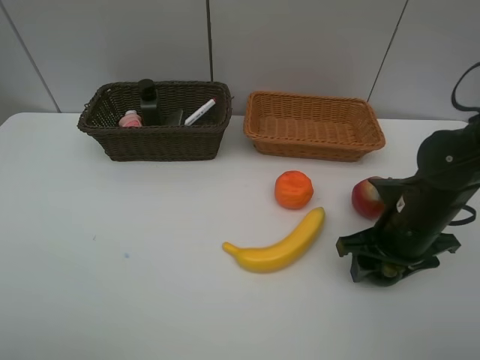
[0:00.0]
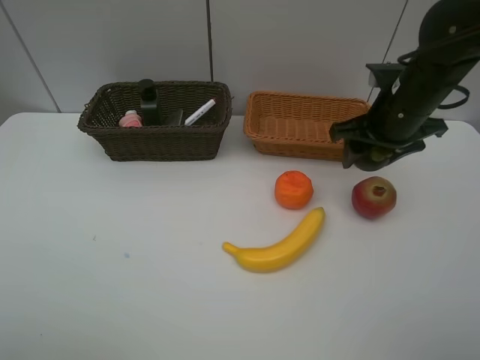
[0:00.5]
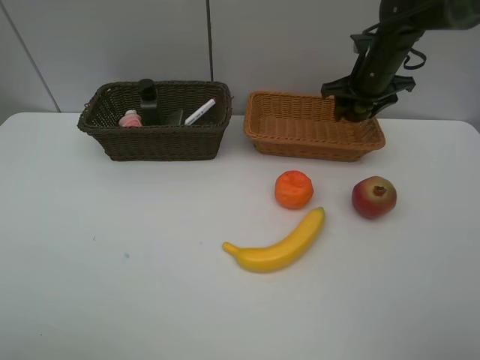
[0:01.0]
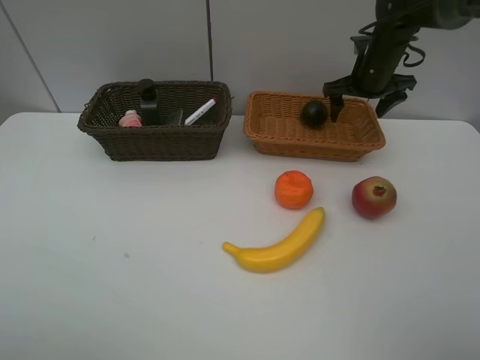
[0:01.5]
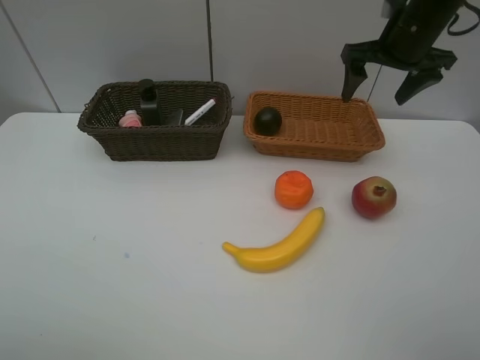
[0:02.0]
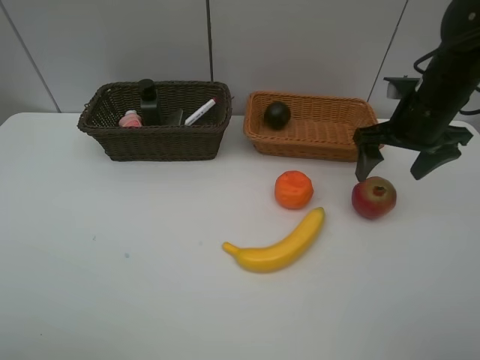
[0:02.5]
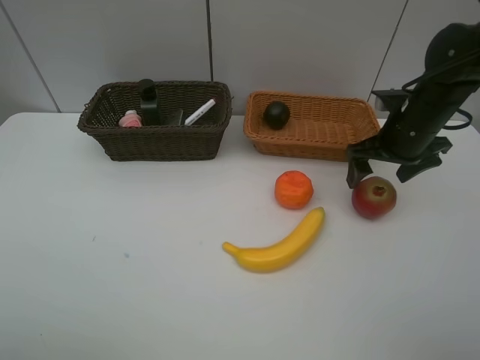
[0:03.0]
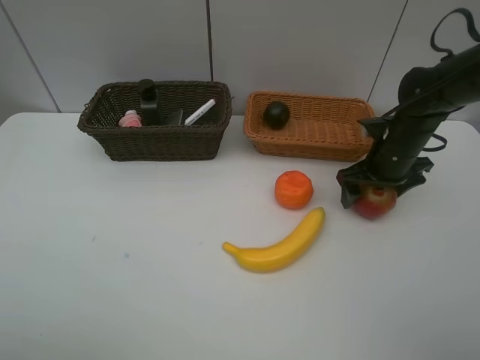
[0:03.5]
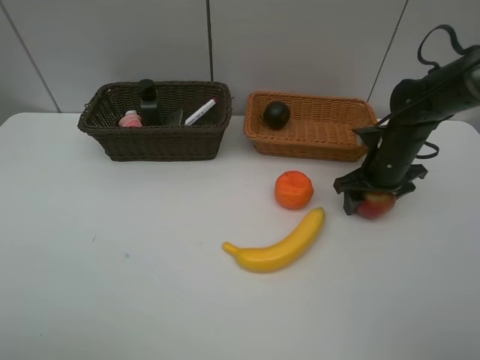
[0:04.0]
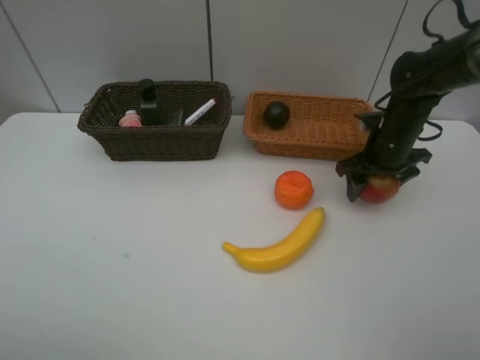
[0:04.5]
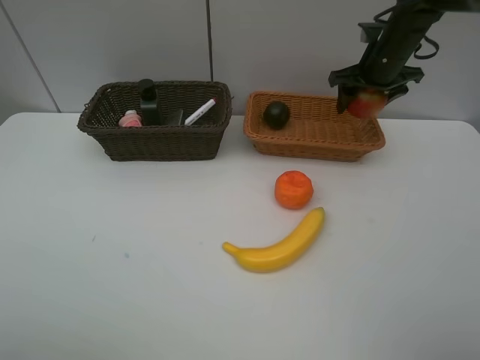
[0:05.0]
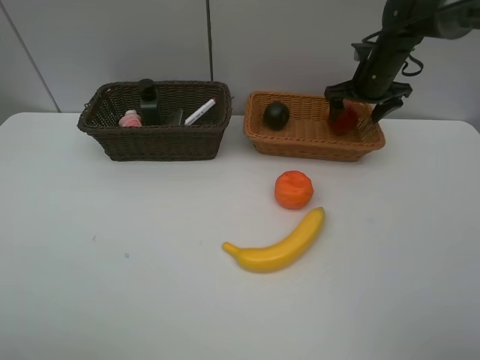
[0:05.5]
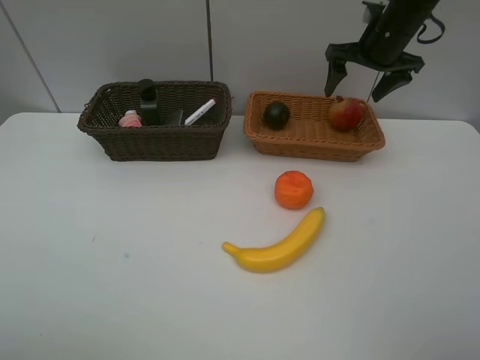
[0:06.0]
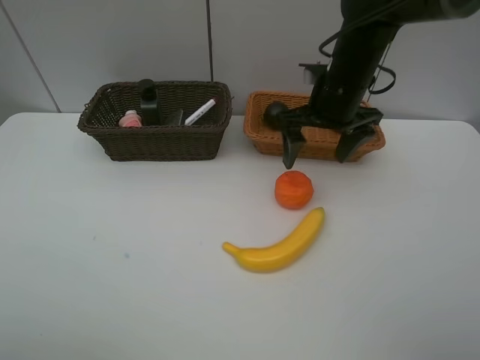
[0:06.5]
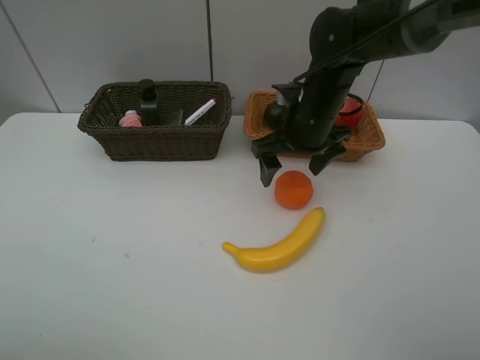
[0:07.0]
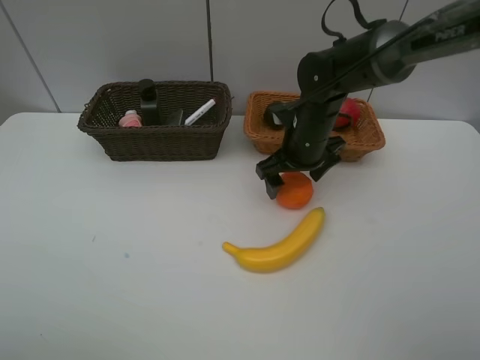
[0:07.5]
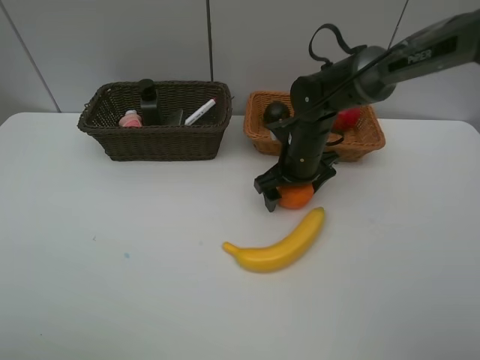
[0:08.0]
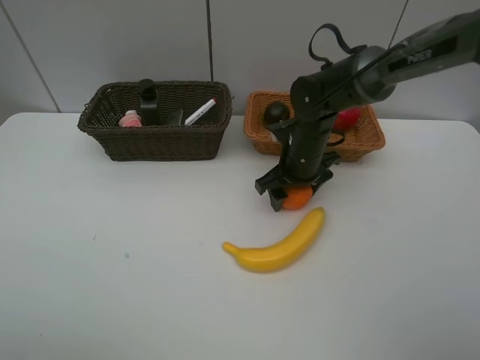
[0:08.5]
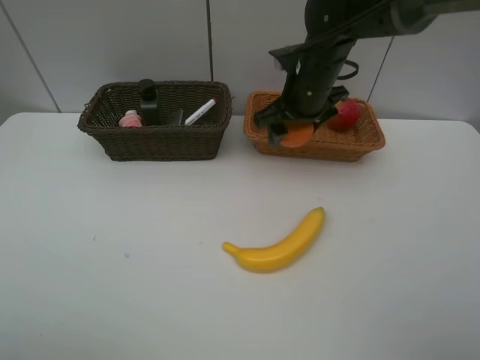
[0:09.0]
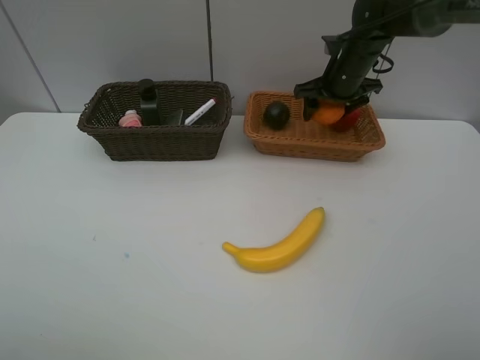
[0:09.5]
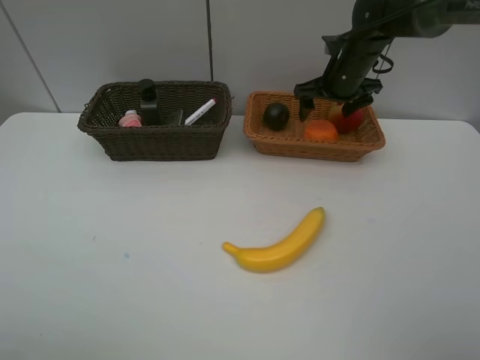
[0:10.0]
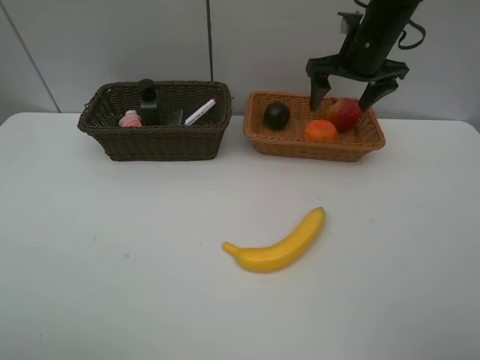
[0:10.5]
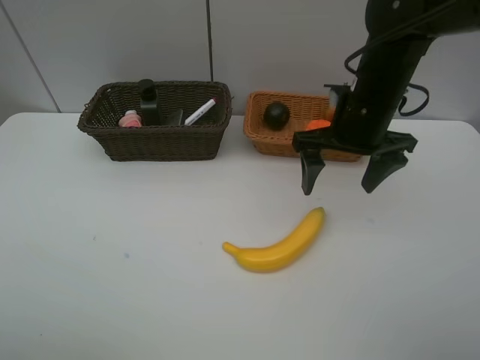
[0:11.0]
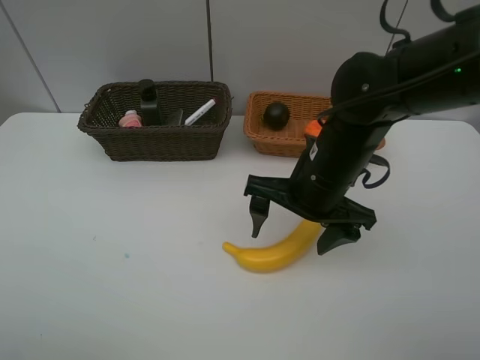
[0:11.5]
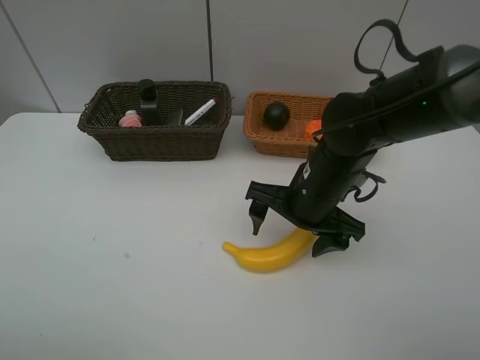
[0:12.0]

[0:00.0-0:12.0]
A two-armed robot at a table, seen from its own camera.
Task of the whole recording: Place multiple objects separately in different baskets.
Step, 0:00.5 to 0:01.0: Place the mangosteen in the light basket with right gripper.
Step, 0:01.5 to 0:04.5: Pick up the pomegranate with right gripper.
Step, 0:05.0 to 0:05.5: Place the pomegranate in the light basket with right gripper.
Step, 0:06.0 to 0:08.5: Pick up the orange with right gripper.
Step, 0:09.0 to 0:09.5: Place the orange in the light basket with right gripper.
0:00.0 to 0:02.0: The right gripper is displaced forward and upward by about 25 cm, and opens up.
0:02.0 to 0:04.0: The right gripper goes some 20 cm downward, and closes.
0:04.0 to 0:06.0: The right gripper swings up and down, about 15 cm each way, with 2 reversals, and opens up.
0:06.0 to 0:08.0: The right gripper goes about 20 cm downward, to the left and backward.
0:08.0 to 0:10.0: The right gripper is displaced forward, upward and to the right by about 15 cm, and closes and opens again.
0:10.0 to 0:12.0: The right gripper goes roughly 20 cm backward.

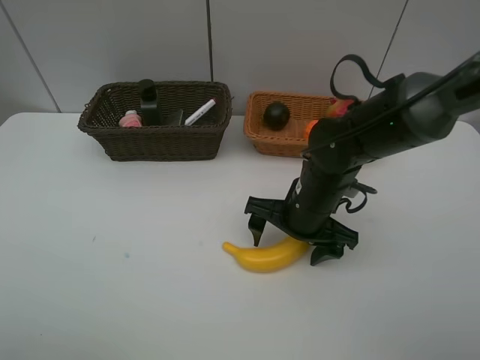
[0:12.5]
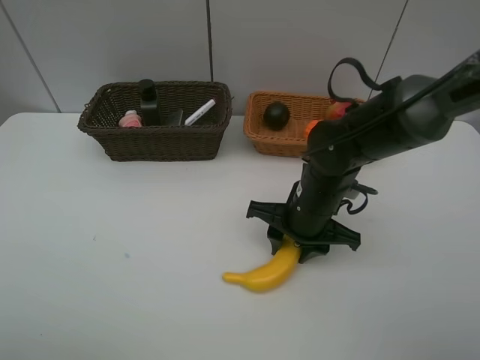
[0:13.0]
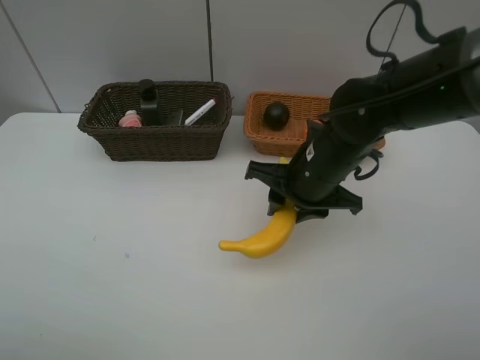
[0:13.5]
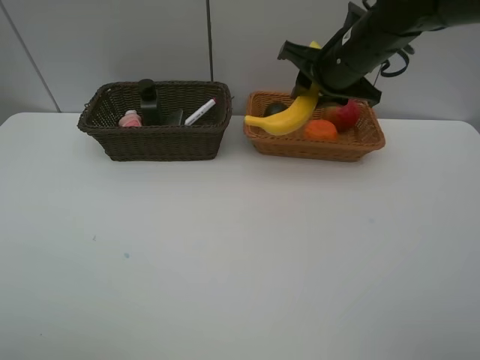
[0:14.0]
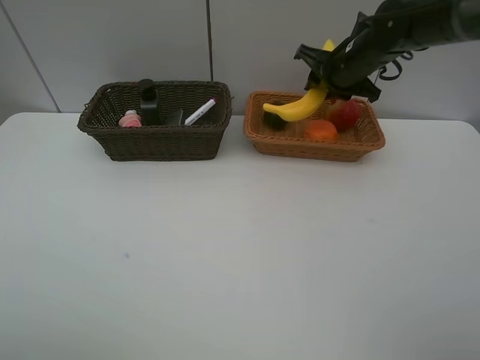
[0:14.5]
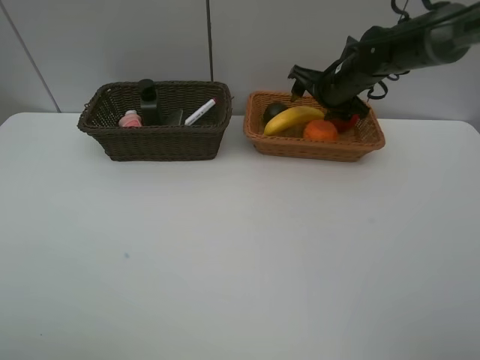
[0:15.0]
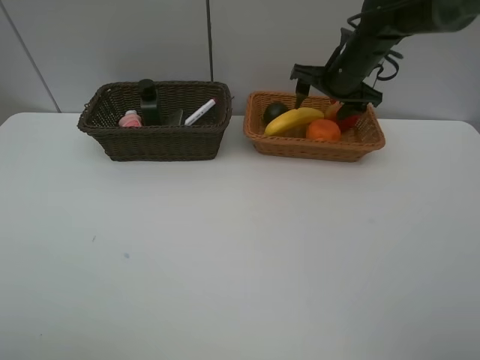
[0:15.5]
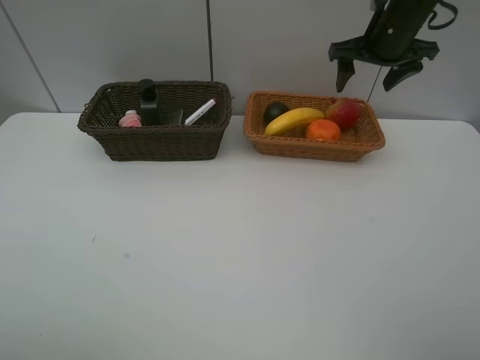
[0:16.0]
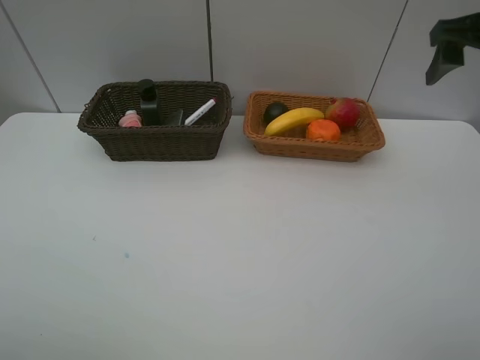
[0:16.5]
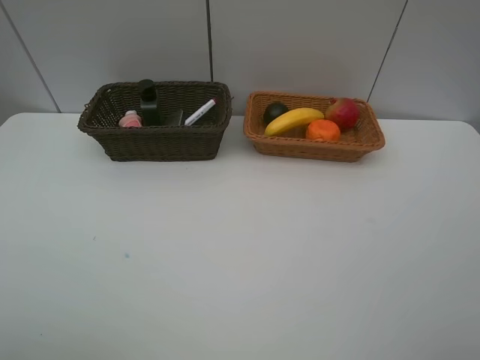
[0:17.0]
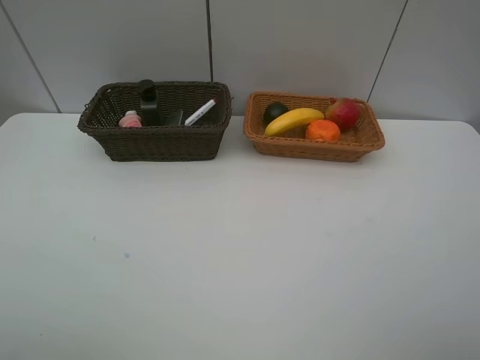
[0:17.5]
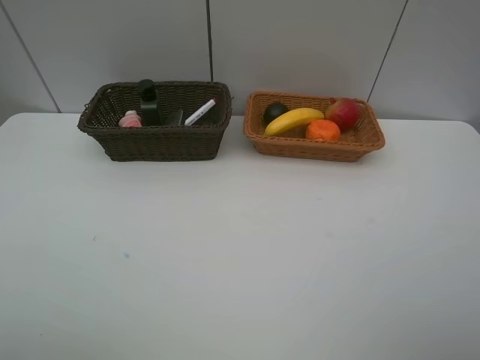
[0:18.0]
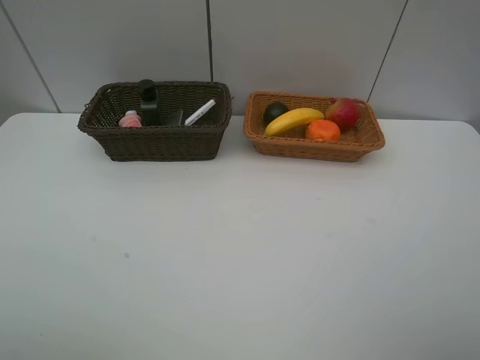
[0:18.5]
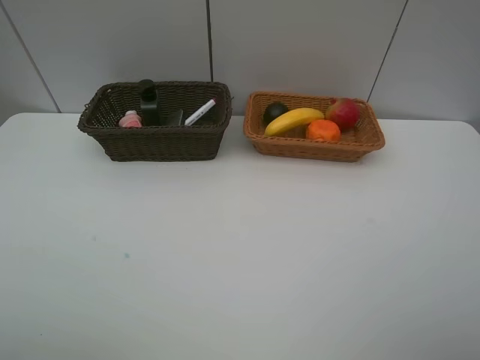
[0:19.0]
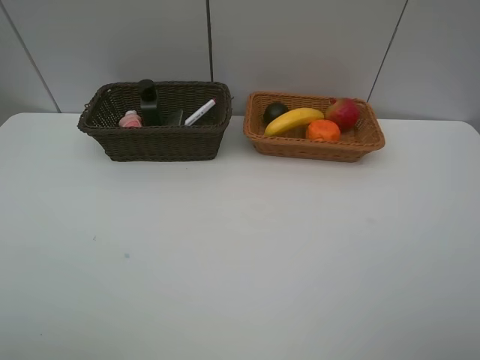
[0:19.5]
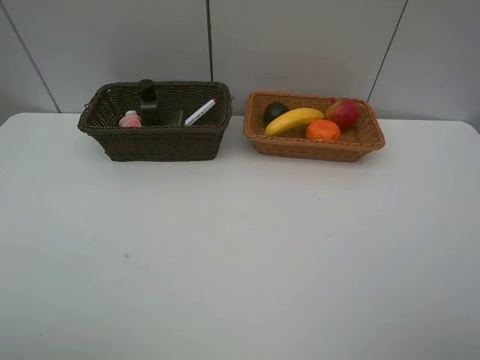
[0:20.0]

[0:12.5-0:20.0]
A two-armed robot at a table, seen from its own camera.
Task of the whole recording: Place multiple objects separately in different baskets.
Step, 0:13.5 to 0:15.5: Place the banana in the light basket with right gripper.
0:12.5 to 0:14.5: The right gripper travels forward, upward and to the right by approximately 25 cm, and closes.
0:14.5 to 0:16.5: The right gripper travels backward, upward and to the right by some 25 cm, and opens.
0:16.5 to 0:18.0: The right gripper is displaced backward by about 30 cm.
0:18.0 to 0:20.0: Both grippers stay about where they are.
